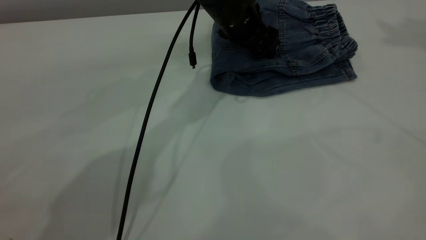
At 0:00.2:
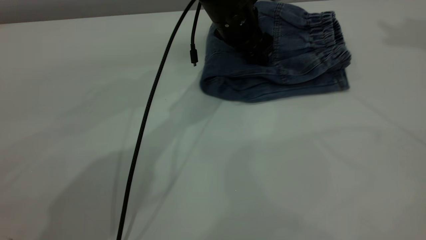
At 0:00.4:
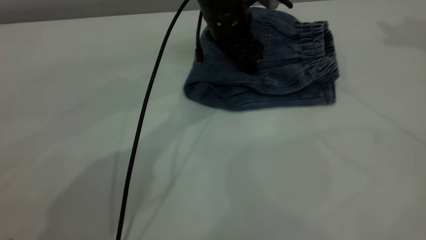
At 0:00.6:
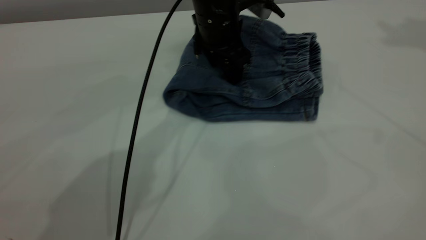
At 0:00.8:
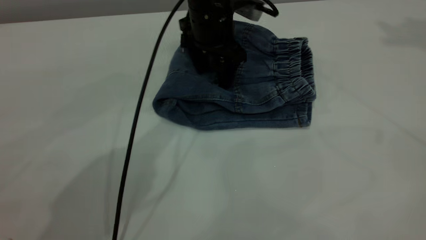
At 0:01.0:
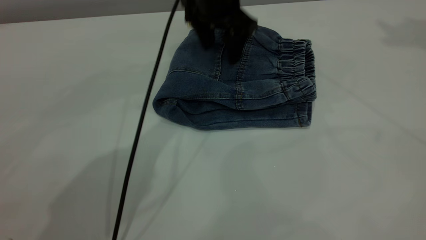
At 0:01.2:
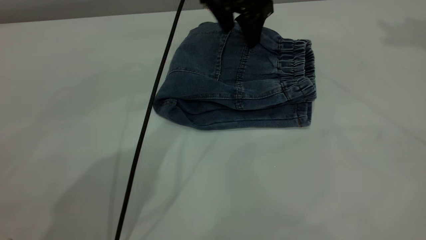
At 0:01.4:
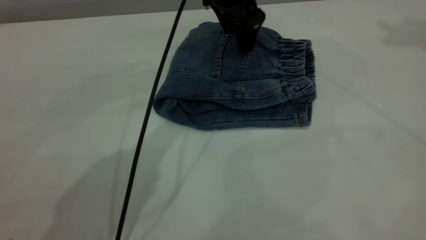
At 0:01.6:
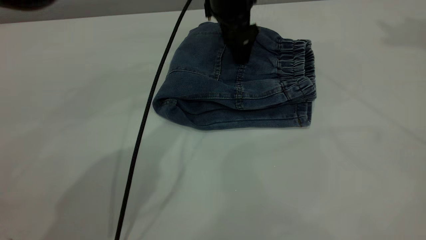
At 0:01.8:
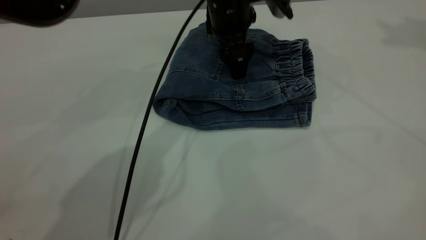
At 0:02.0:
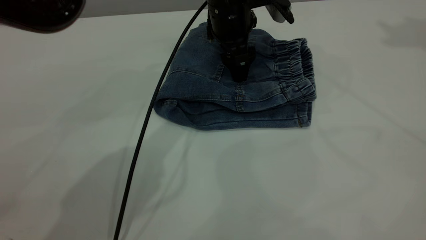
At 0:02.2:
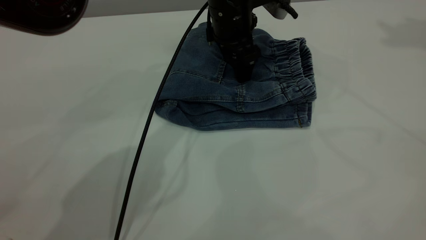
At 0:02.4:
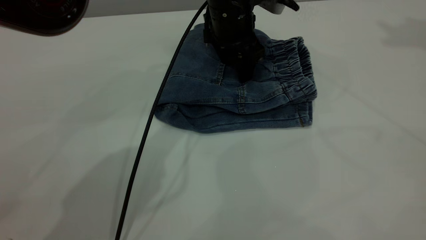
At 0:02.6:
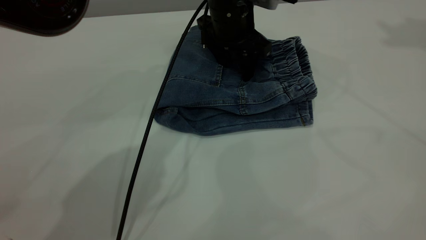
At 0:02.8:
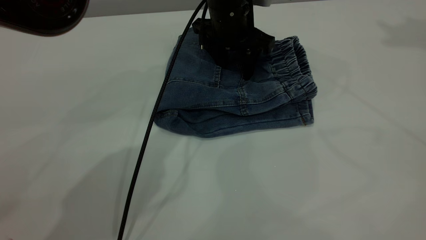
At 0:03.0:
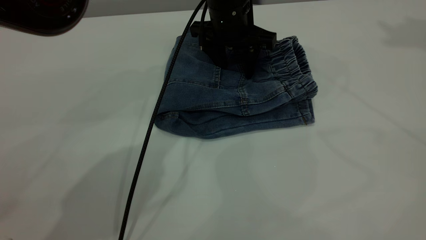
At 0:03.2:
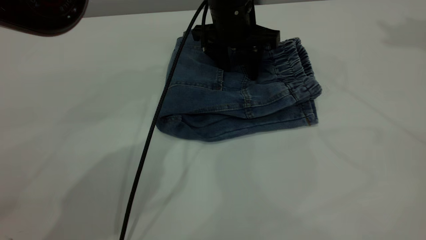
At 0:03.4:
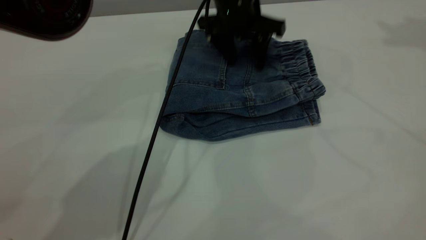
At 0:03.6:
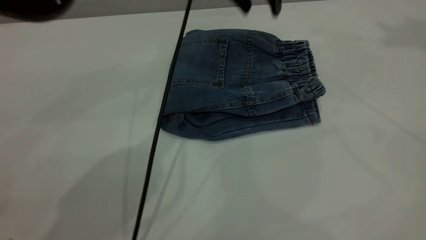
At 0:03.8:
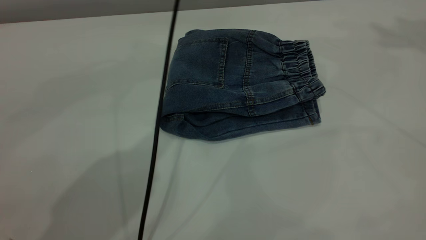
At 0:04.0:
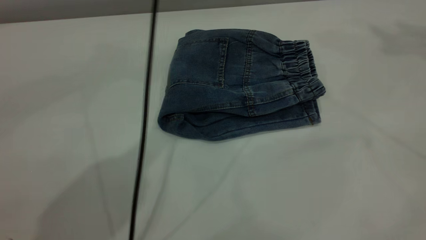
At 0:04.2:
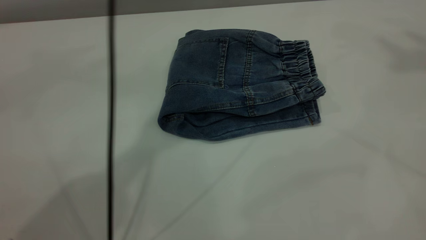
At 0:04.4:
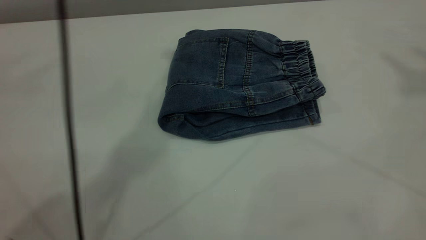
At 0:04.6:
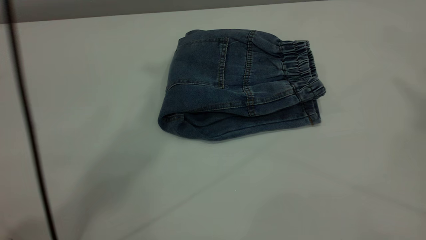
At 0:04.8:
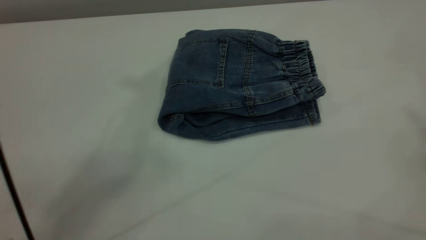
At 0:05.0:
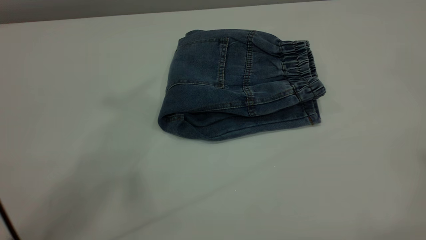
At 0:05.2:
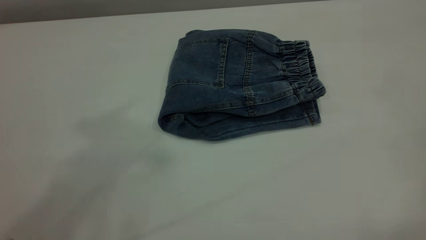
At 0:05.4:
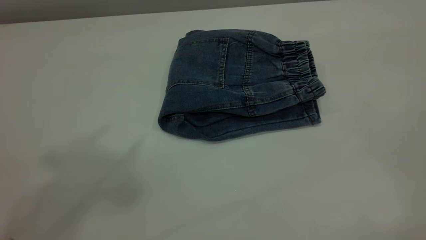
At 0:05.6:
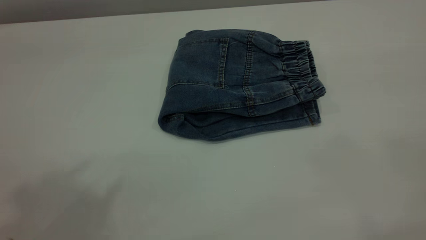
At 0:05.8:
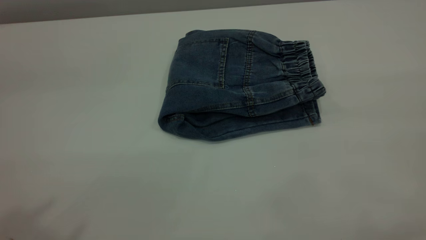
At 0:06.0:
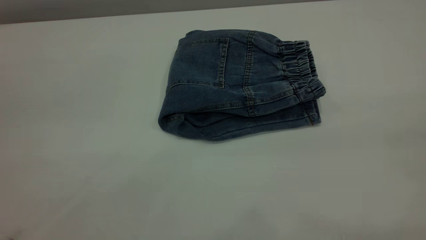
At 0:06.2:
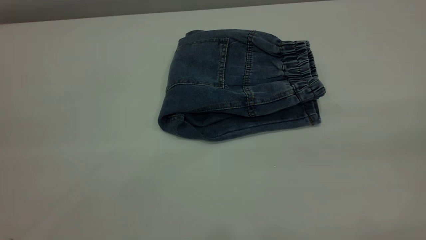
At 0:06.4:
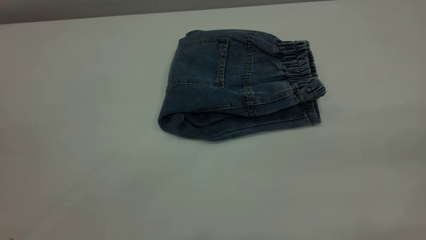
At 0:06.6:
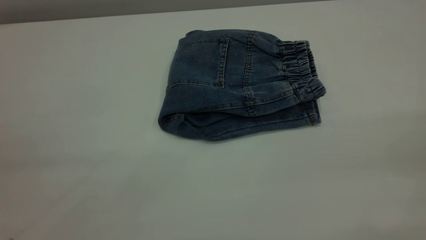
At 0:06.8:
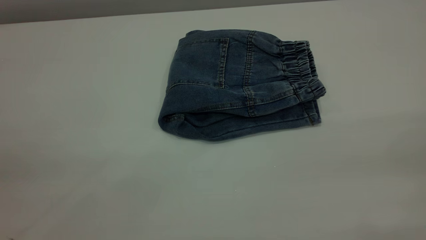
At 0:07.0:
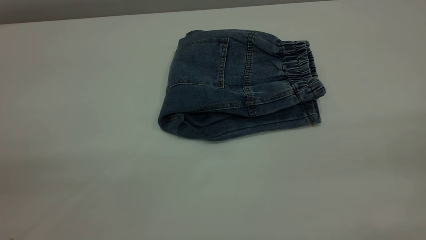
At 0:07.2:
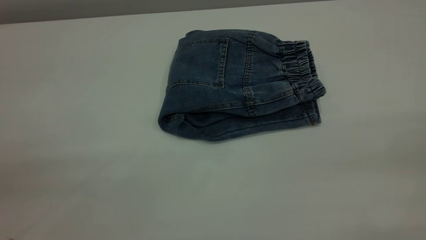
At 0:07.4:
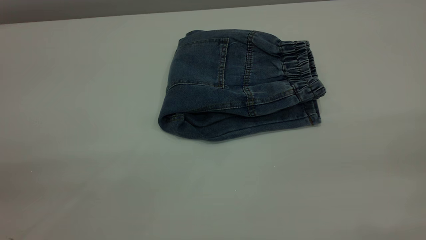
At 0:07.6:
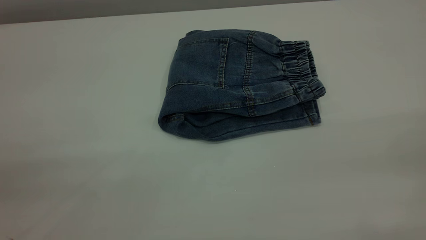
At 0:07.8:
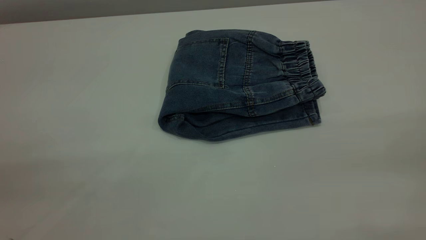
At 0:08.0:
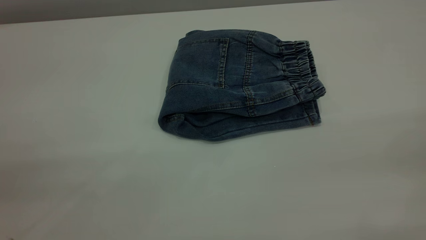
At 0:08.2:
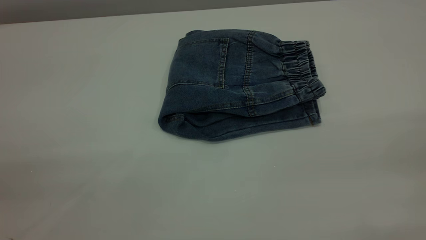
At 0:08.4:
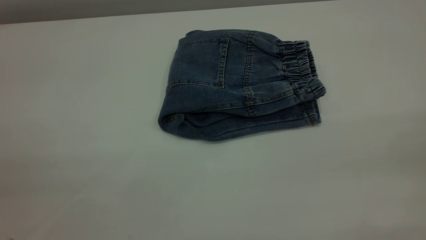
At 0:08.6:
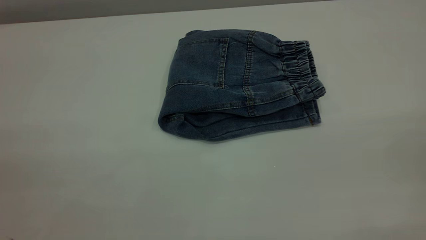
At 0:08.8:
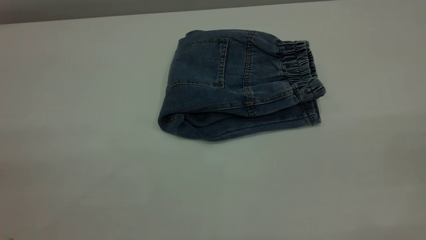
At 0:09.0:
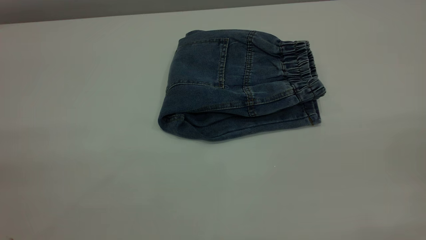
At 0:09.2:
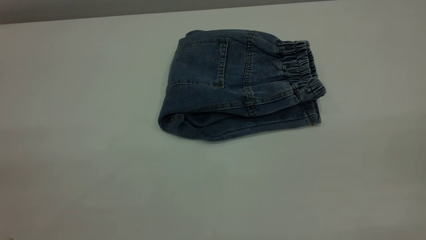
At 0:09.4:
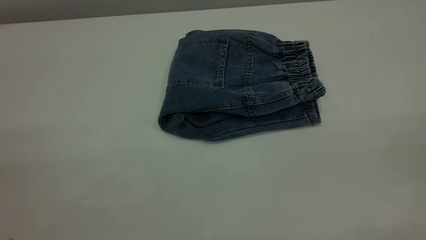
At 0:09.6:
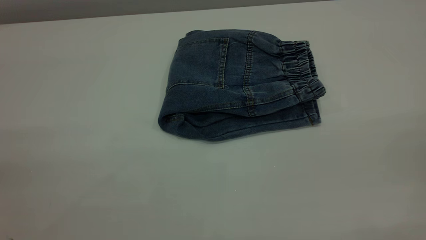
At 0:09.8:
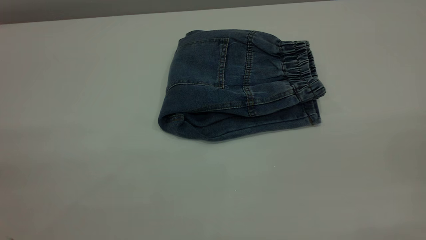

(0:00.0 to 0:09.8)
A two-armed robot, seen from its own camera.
0:00.0 - 0:01.4: The left gripper is displaced upward by approximately 10 cm.
0:01.4 - 0:02.8: The left gripper moves downward, some 5 cm.
0:02.8 - 0:04.2: The right gripper goes approximately 10 cm upward and backward; the left gripper moves upward, roughly 30 cm.
0:04.2 - 0:05.6: The left gripper goes approximately 35 cm backward and to the left.
